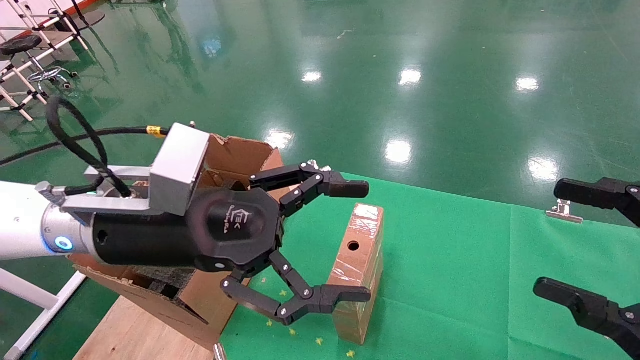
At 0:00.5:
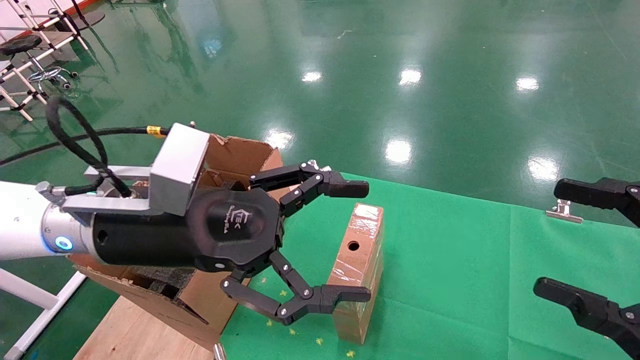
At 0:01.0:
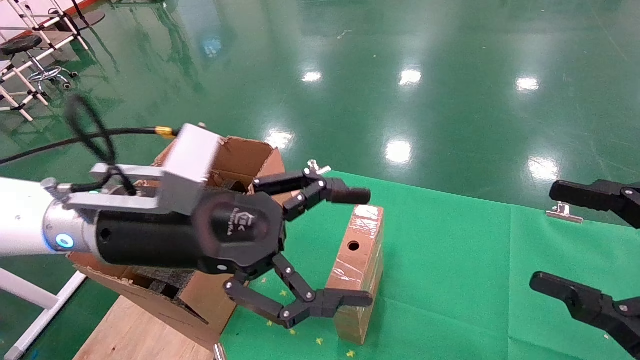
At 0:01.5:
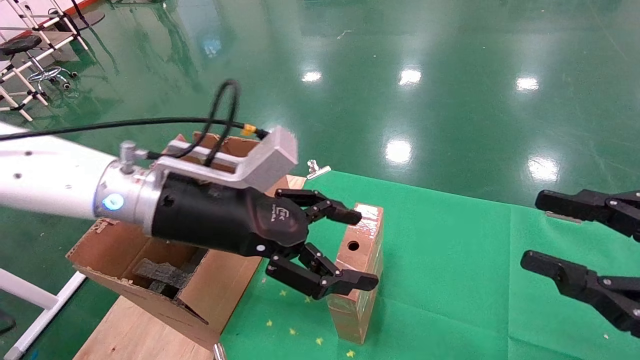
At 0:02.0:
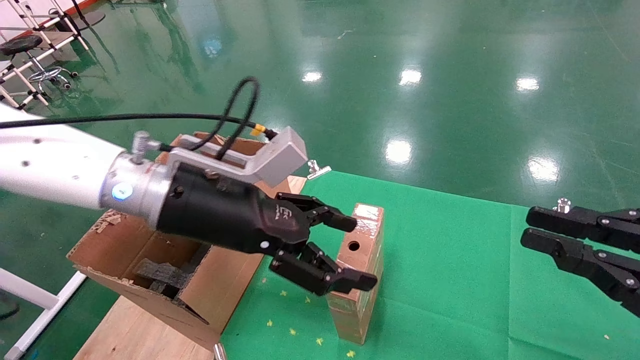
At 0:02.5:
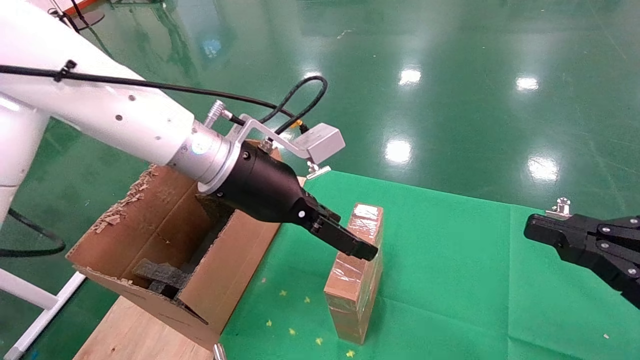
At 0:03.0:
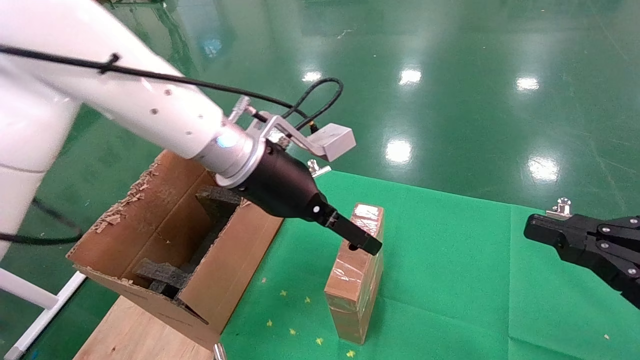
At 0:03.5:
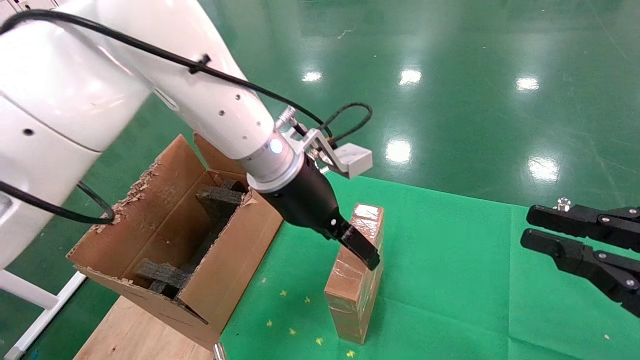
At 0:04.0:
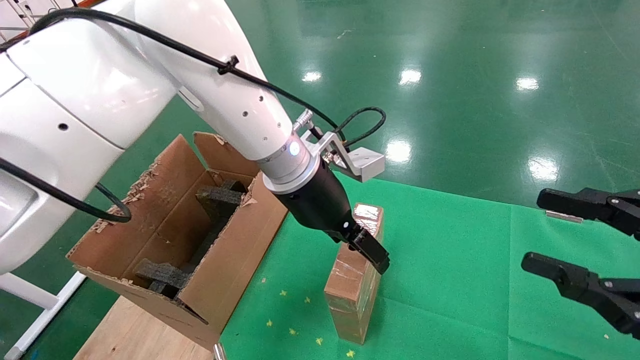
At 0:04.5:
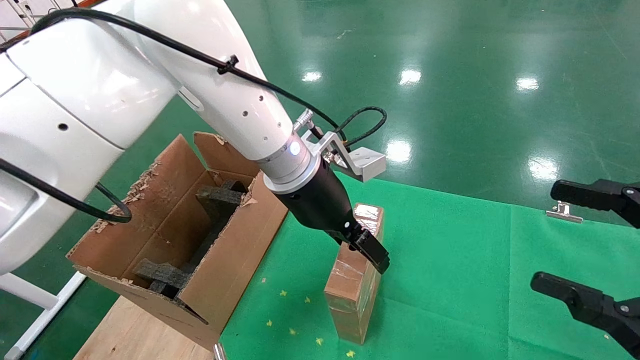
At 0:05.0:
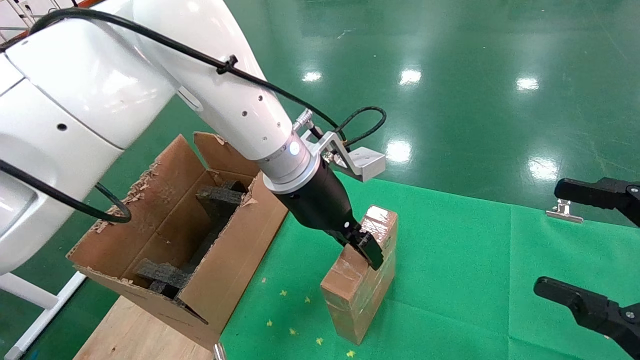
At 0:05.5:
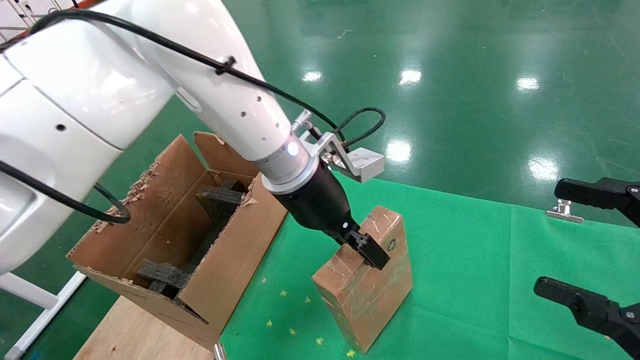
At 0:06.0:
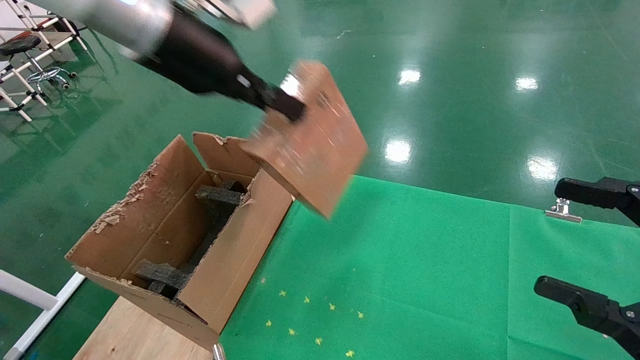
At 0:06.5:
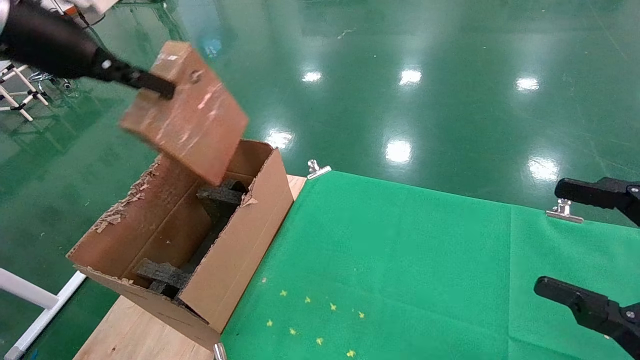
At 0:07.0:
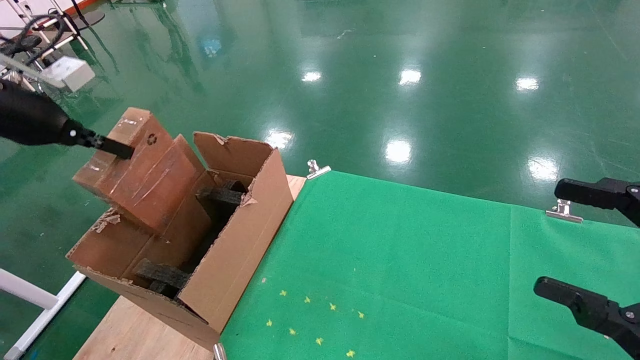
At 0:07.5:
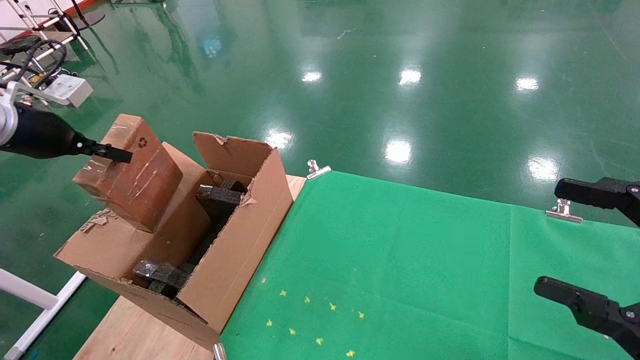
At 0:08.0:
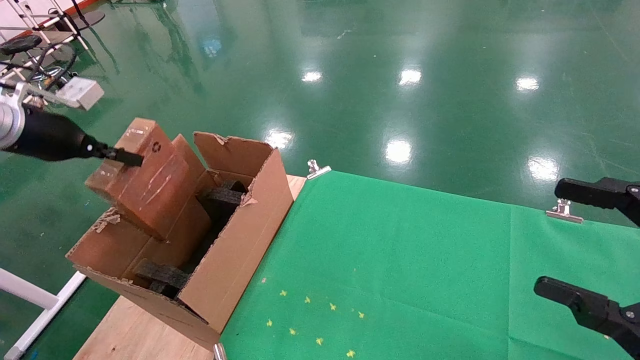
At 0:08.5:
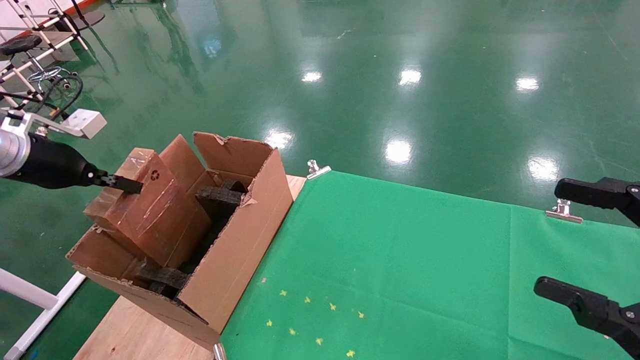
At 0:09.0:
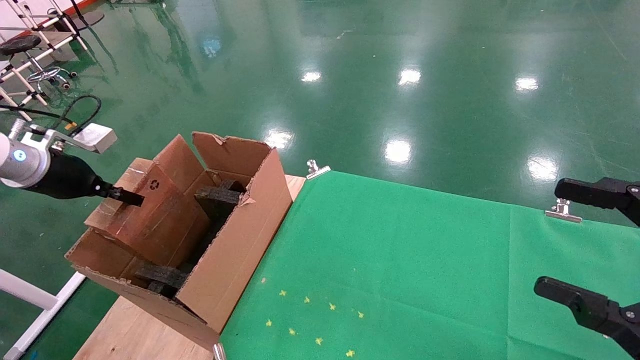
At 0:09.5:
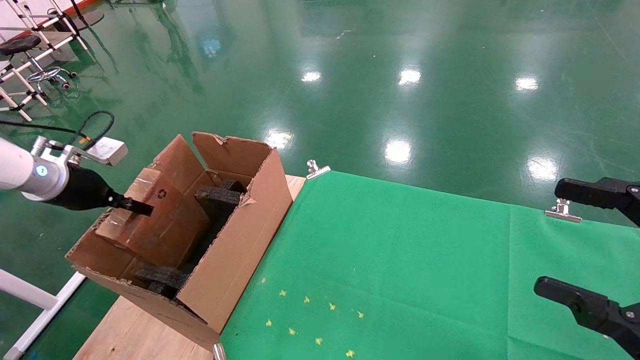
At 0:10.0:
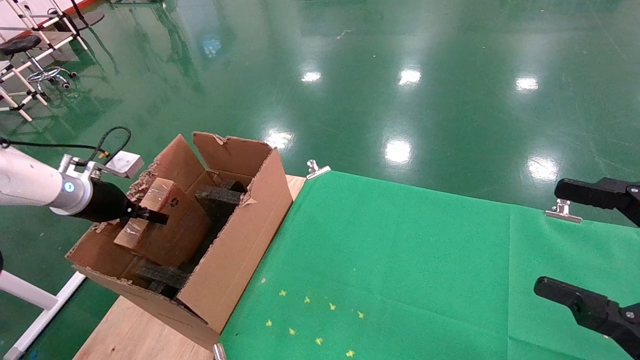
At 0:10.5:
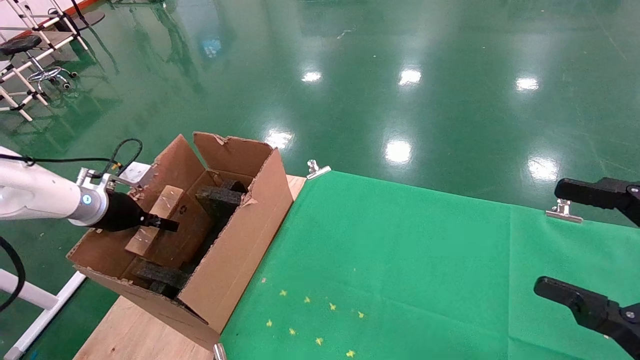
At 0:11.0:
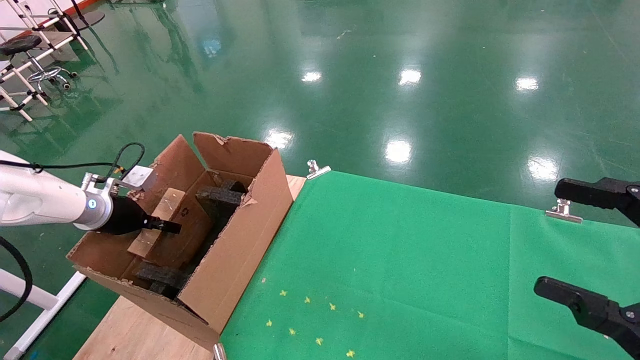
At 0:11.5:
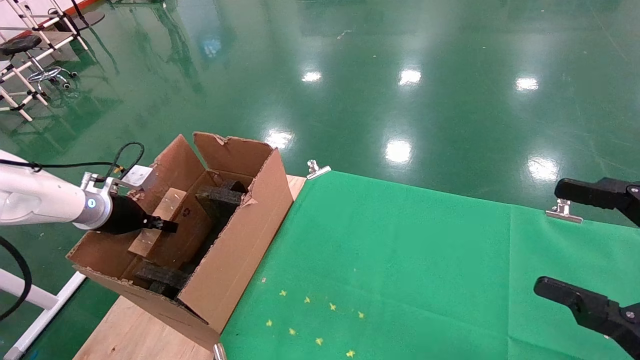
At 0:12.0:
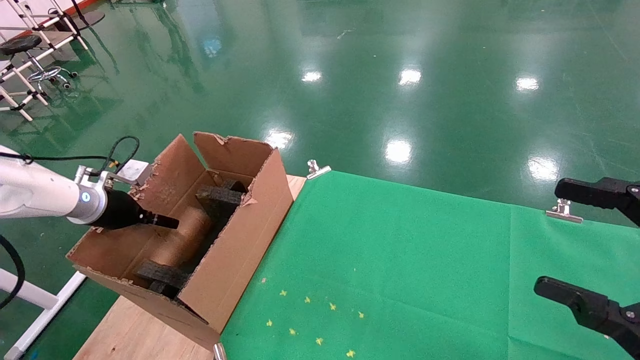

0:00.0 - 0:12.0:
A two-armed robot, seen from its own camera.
Task of the whole recording: using a robotic arm to pick up a cardboard box and palace it the carton.
Step, 0:01.5 - 0:05.0: Pick up the mouse and the power cord paper box.
0:00.0 - 0:02.0: The left gripper heads forward, covering some 5 cm. The right gripper closes.
0:02.0 - 0:04.0: The left gripper moves to the right and forward, roughly 15 cm.
0:04.0 - 0:06.0: The right gripper opens. The left gripper travels upward and to the left by approximately 20 cm, and closes.
0:06.0 - 0:08.0: The left gripper travels to the left and downward by about 30 cm.
0:08.0 - 0:10.0: The left gripper moves downward and forward, approximately 15 cm.
0:10.0 - 0:12.0: The left gripper opens its fingers.

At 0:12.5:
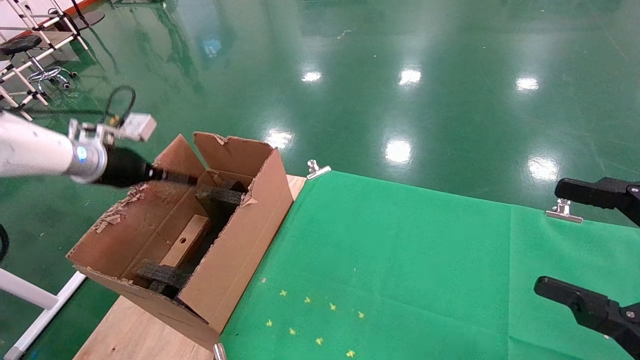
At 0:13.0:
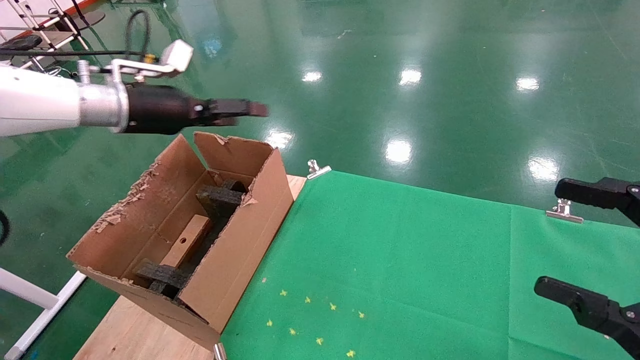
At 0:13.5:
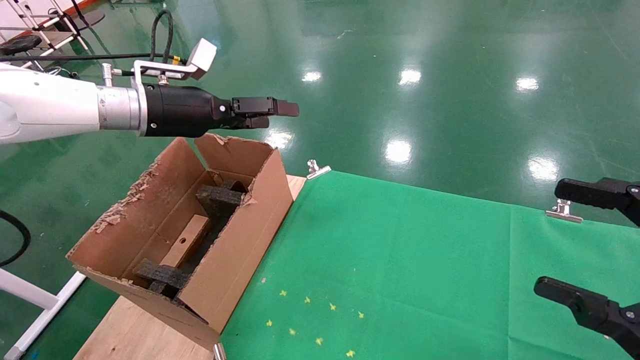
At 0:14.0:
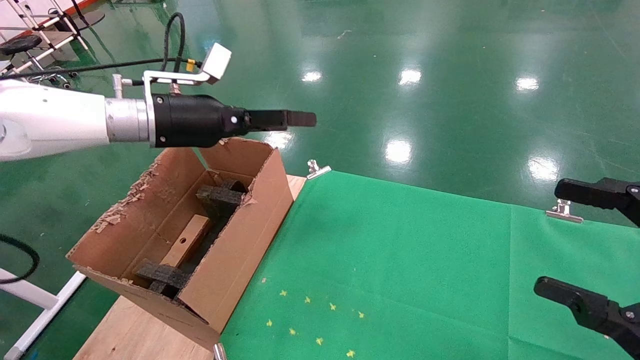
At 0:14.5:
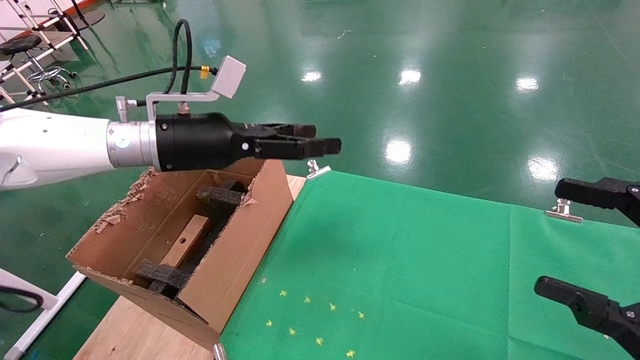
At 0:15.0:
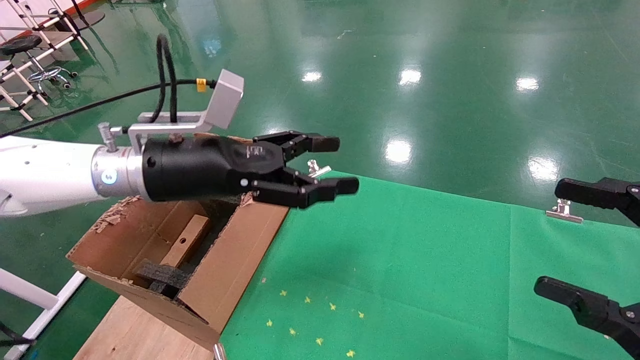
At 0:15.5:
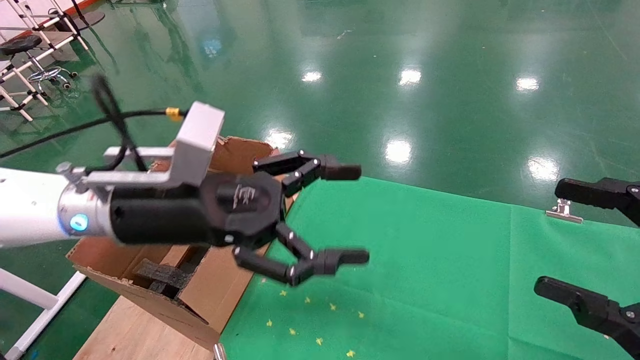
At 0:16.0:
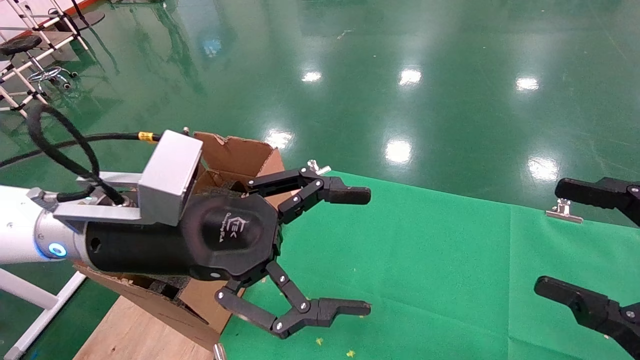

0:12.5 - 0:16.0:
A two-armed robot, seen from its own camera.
Task of the whole recording: using a robotic arm to pick up a cardboard box and palace it the carton.
0:12.5 - 0:14.5: The left gripper travels to the right by some 20 cm.
0:14.5 - 0:16.0: The left gripper is displaced backward and to the right by approximately 15 cm.
